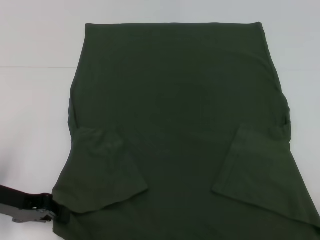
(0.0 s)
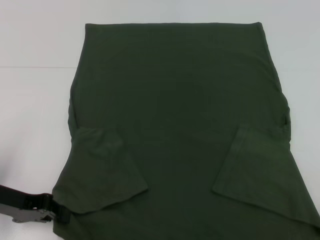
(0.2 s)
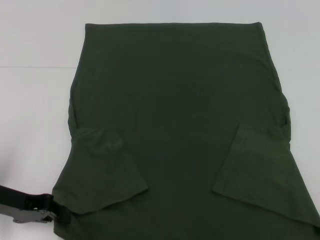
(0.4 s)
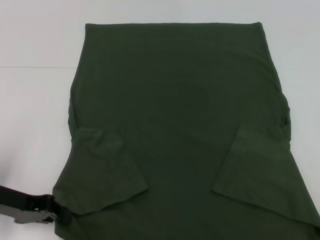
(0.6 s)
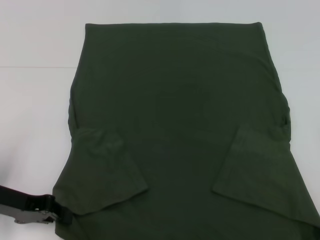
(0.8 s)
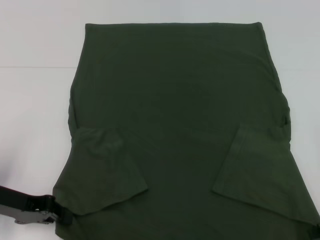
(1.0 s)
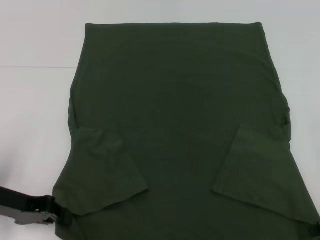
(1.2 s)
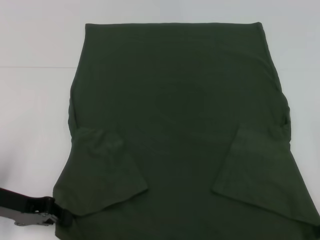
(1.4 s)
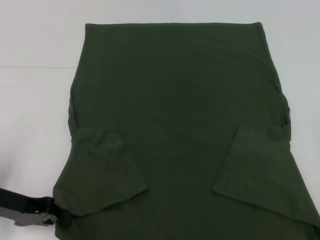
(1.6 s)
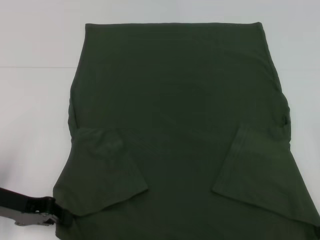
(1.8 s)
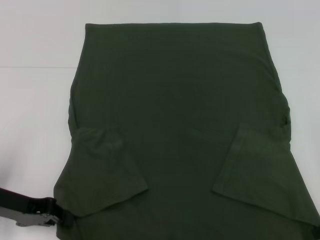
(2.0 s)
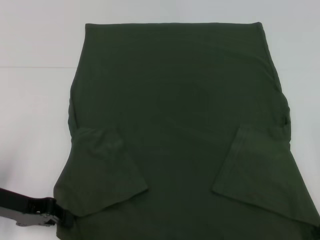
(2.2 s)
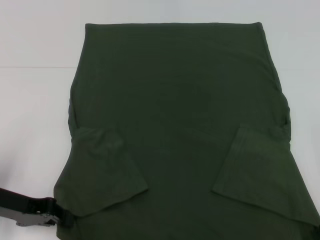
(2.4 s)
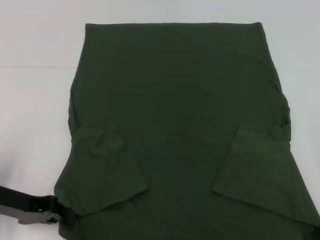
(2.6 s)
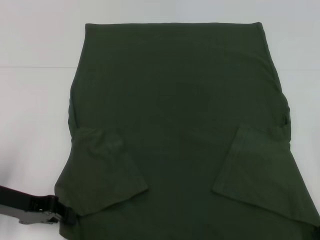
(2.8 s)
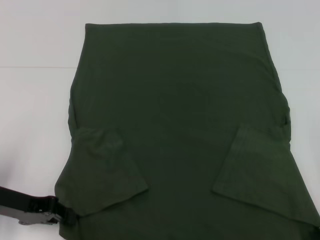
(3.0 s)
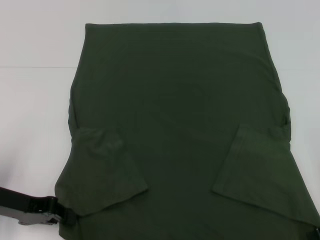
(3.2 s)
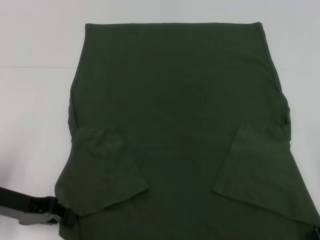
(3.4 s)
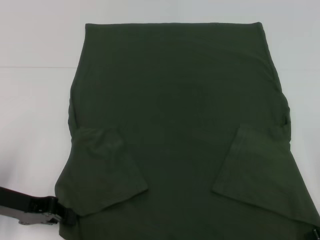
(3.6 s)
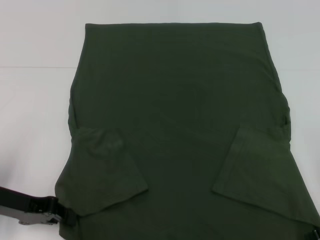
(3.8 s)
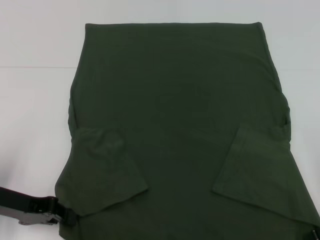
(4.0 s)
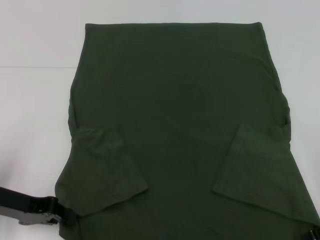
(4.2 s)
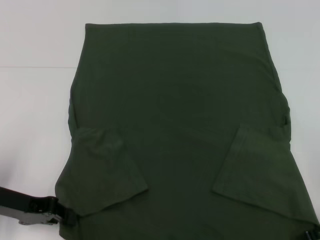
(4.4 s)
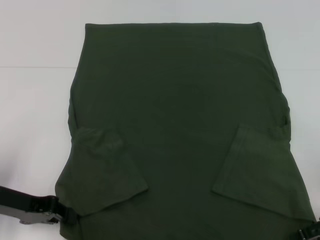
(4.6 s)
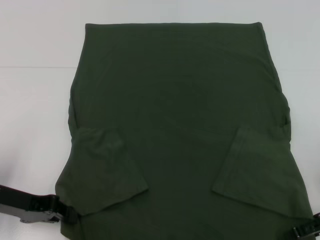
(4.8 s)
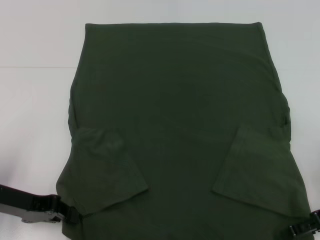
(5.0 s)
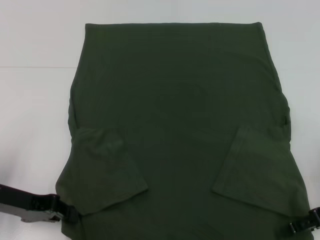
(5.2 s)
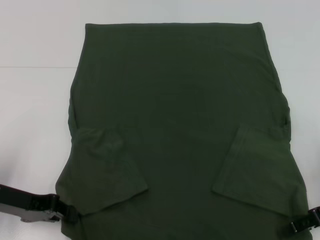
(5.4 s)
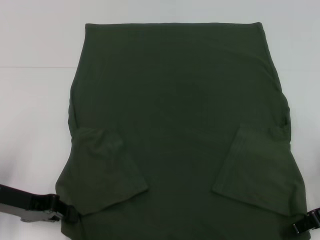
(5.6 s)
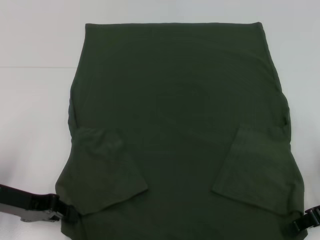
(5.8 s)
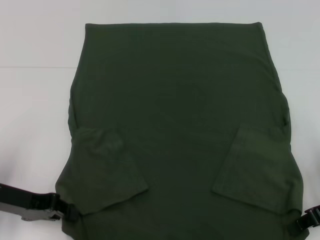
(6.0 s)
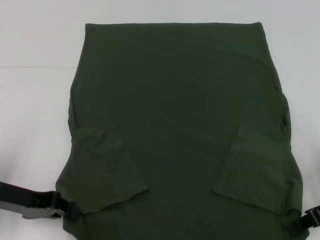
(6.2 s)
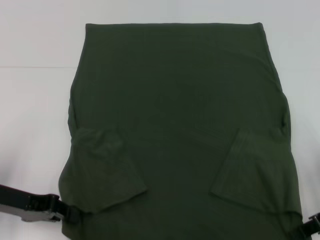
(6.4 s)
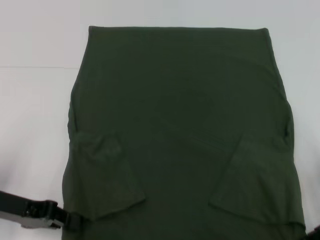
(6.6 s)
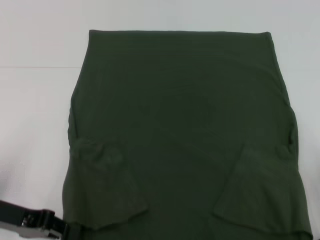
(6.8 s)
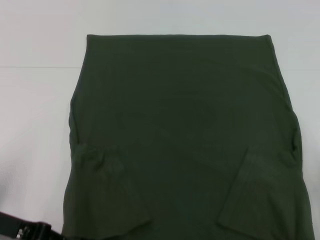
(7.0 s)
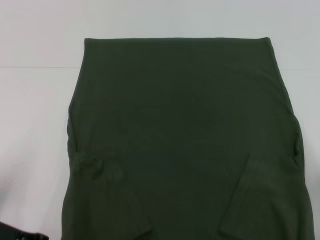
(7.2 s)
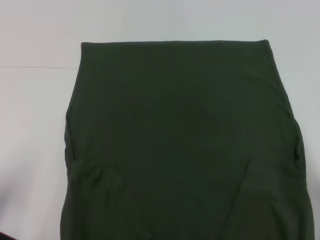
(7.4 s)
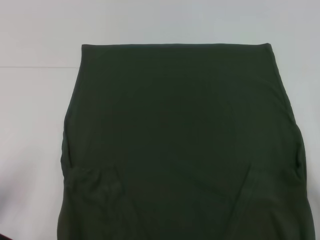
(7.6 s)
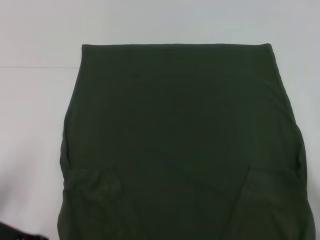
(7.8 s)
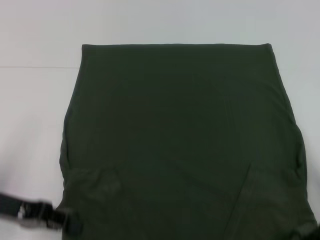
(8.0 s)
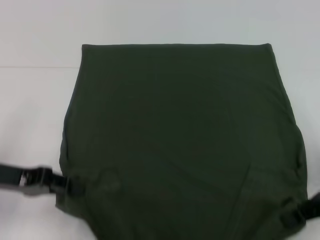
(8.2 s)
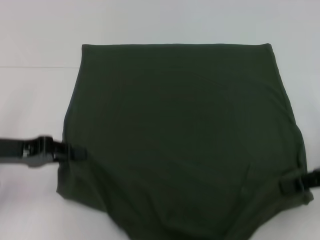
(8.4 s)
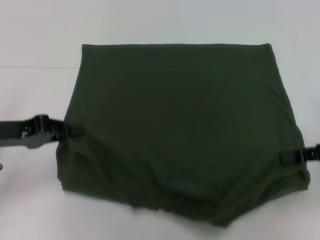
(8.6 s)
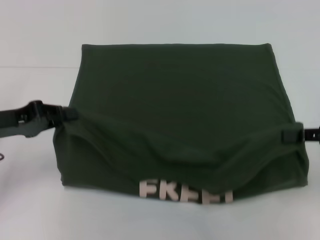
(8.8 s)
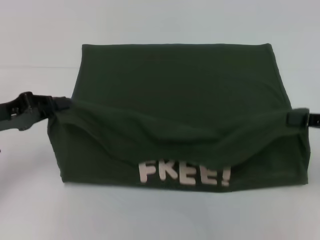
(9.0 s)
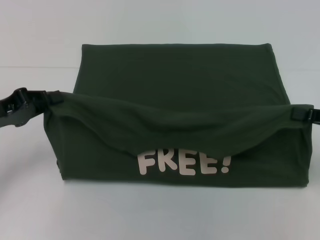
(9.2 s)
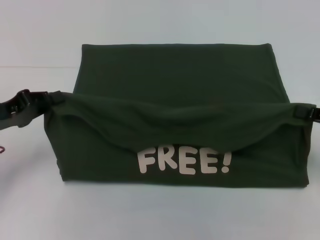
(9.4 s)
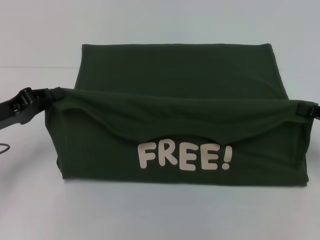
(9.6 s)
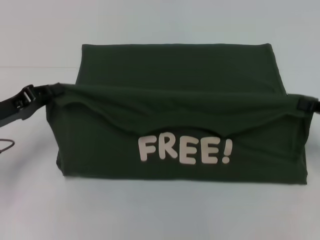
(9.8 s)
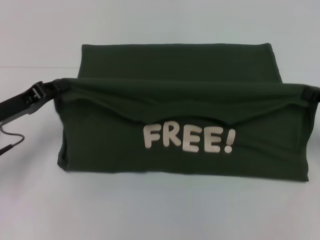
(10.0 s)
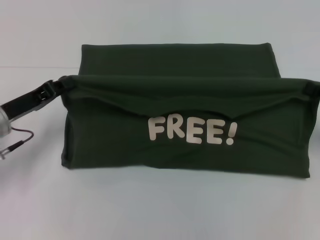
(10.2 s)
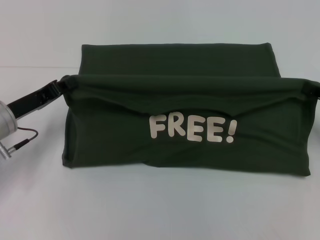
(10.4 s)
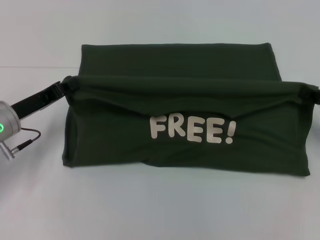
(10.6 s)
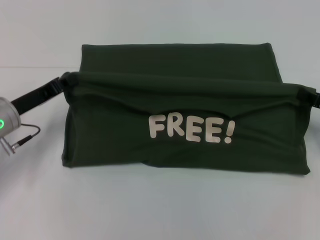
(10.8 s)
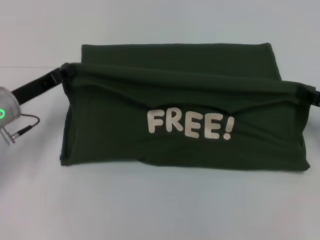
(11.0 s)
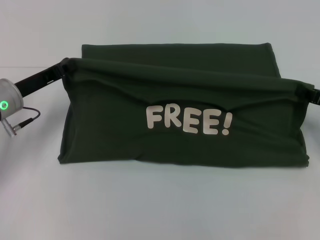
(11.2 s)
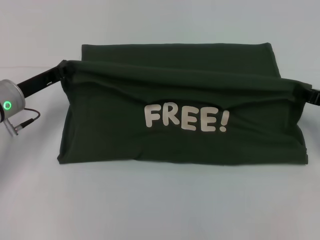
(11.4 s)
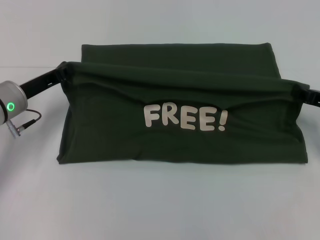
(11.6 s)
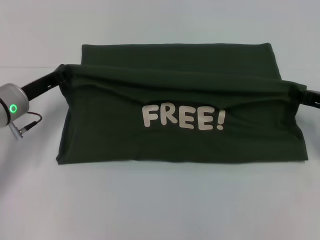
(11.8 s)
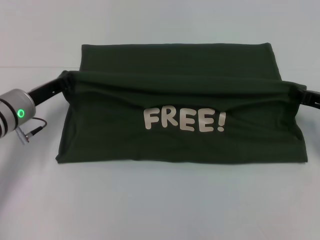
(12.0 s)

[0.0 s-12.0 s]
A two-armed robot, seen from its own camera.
Step, 0.0 to 6.2 s: Grab the bottom right corner with your right hand.
0.0 to 1.6 s: The grippers move only a little.
1.6 to 3.0 s: Neither gripper changes place.
4.4 to 6.0 s: The right gripper closes.
7.6 to 9.0 s: The left gripper travels forward by about 5 cm. The right gripper goes approximately 5 cm to the right.
9.0 to 10.4 s: The right gripper shifts by approximately 5 cm, while the left gripper changes place by roughly 5 cm.
10.4 to 12.0 s: There are only small adjustments of the grippers.

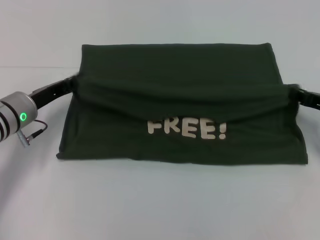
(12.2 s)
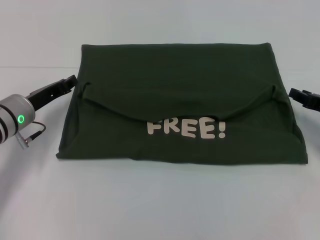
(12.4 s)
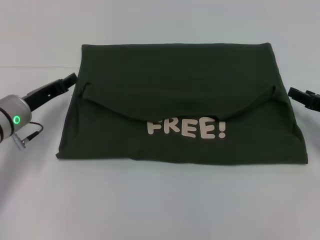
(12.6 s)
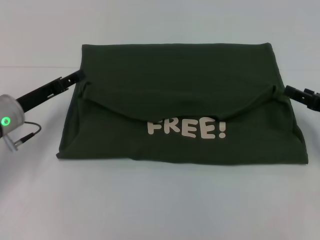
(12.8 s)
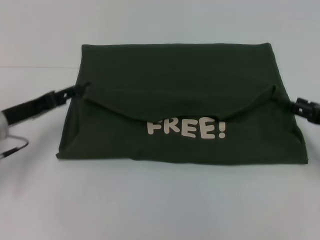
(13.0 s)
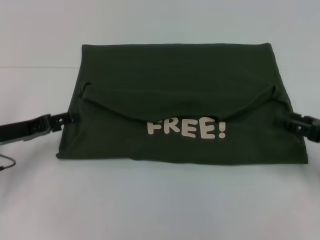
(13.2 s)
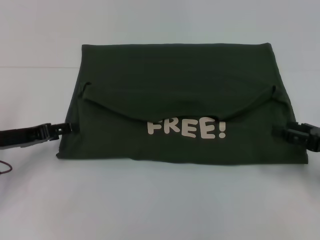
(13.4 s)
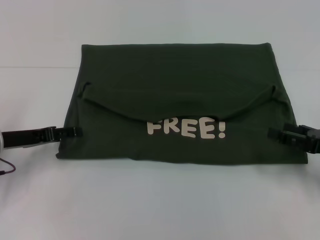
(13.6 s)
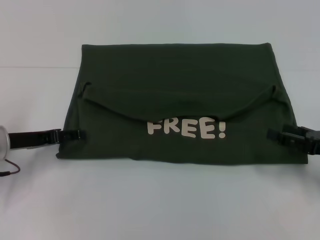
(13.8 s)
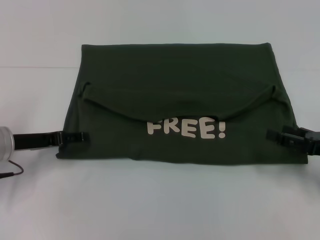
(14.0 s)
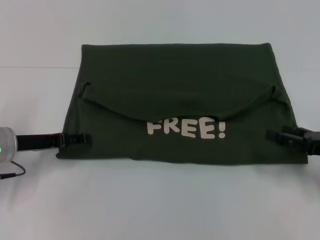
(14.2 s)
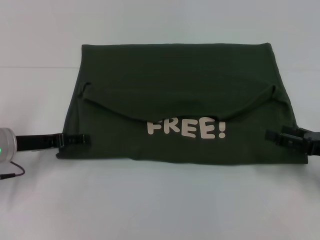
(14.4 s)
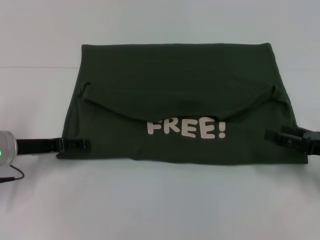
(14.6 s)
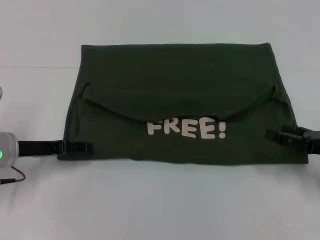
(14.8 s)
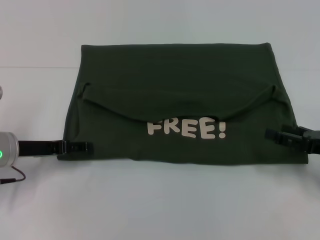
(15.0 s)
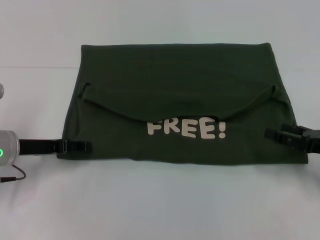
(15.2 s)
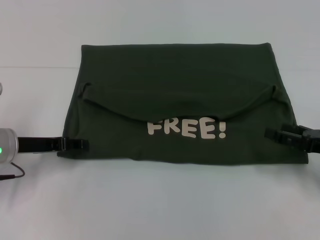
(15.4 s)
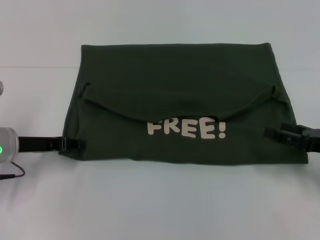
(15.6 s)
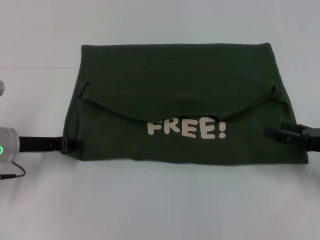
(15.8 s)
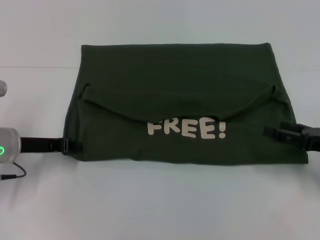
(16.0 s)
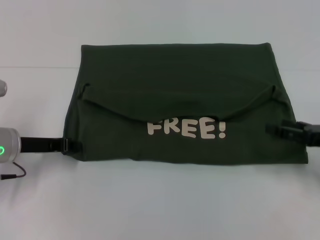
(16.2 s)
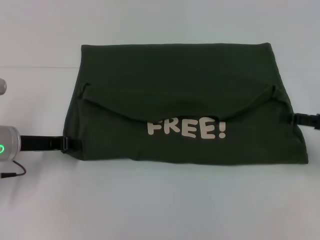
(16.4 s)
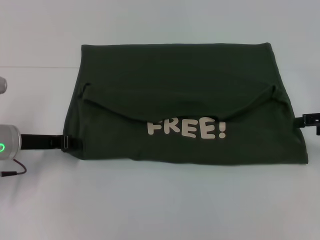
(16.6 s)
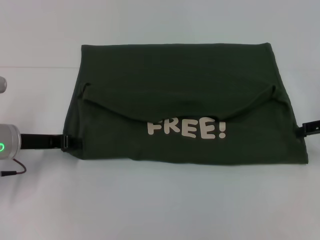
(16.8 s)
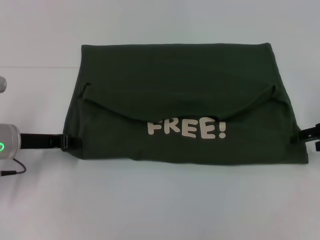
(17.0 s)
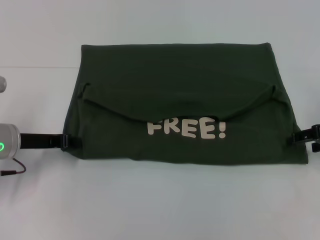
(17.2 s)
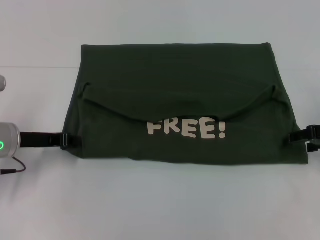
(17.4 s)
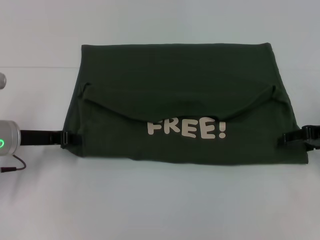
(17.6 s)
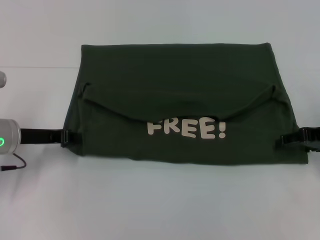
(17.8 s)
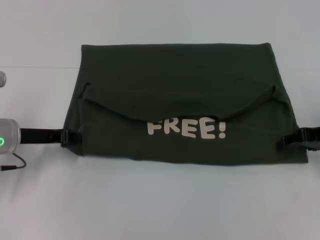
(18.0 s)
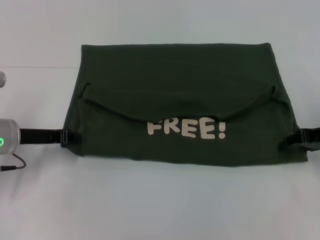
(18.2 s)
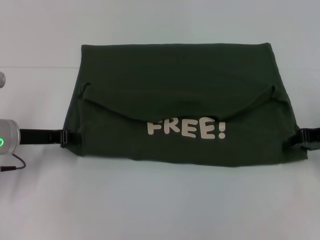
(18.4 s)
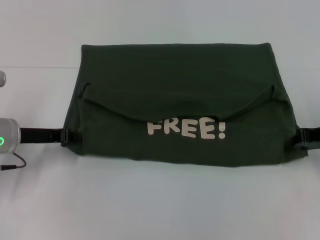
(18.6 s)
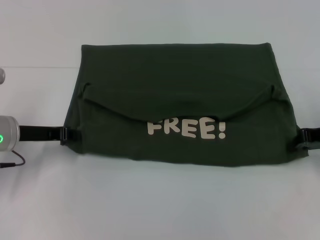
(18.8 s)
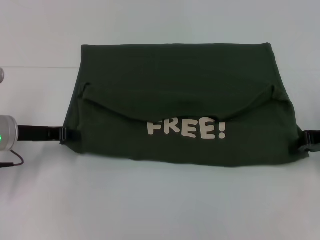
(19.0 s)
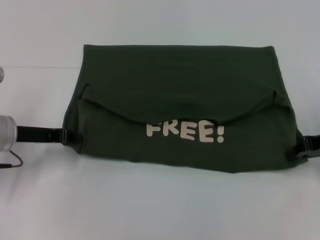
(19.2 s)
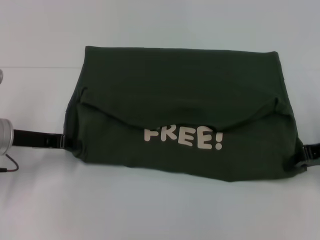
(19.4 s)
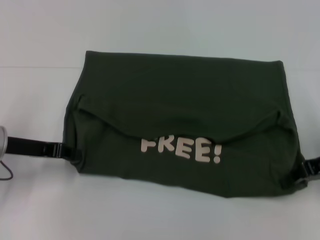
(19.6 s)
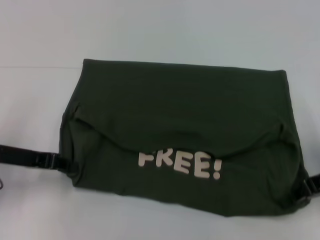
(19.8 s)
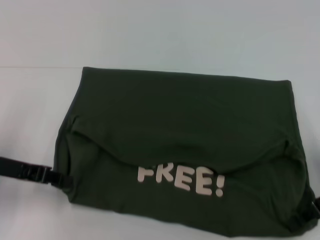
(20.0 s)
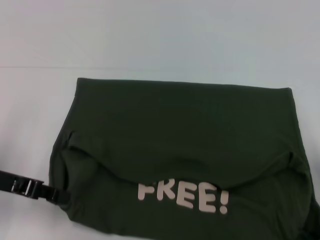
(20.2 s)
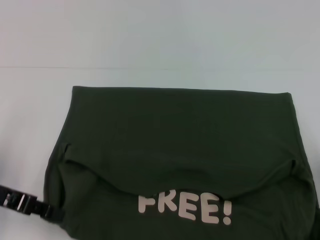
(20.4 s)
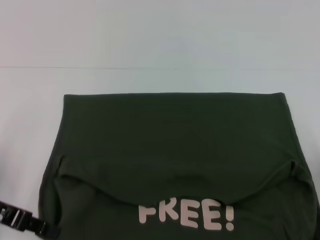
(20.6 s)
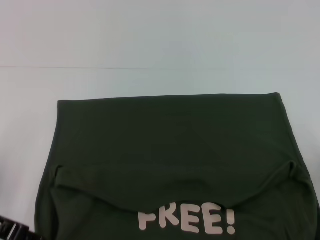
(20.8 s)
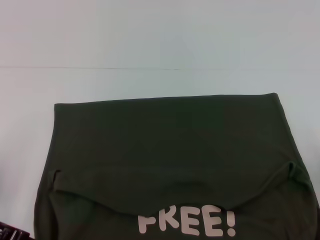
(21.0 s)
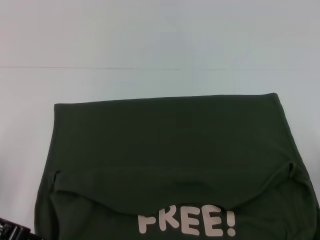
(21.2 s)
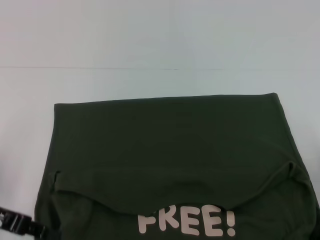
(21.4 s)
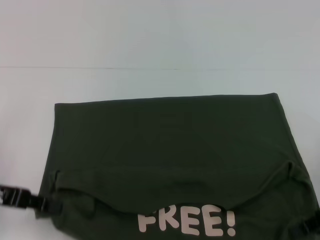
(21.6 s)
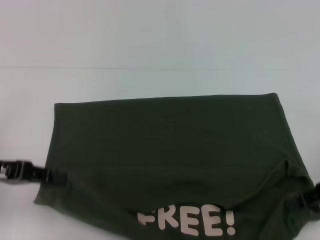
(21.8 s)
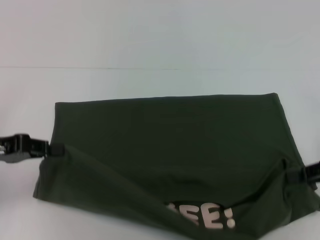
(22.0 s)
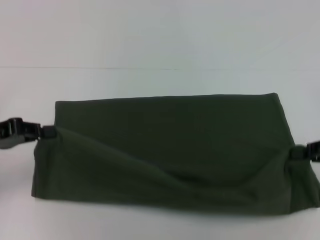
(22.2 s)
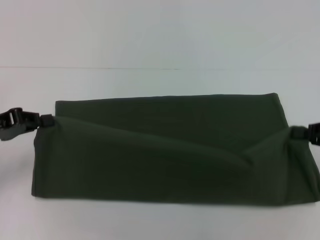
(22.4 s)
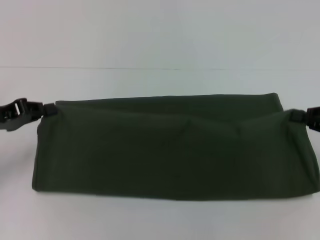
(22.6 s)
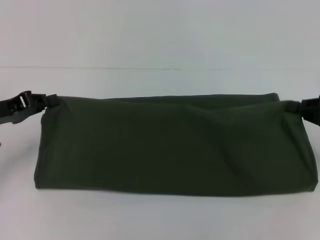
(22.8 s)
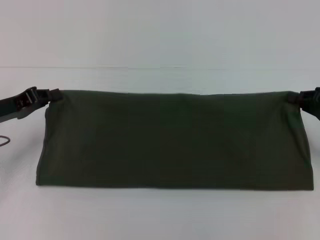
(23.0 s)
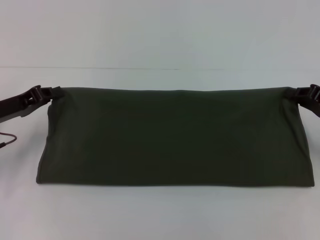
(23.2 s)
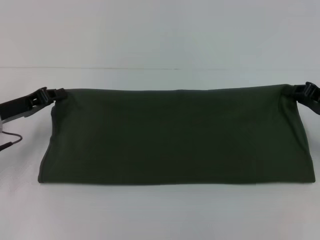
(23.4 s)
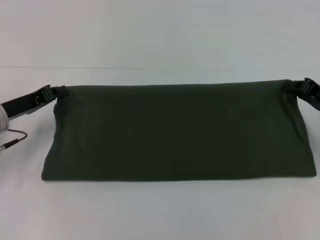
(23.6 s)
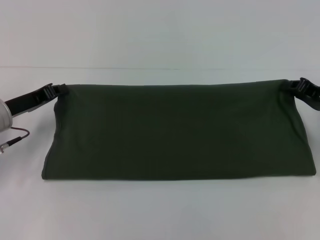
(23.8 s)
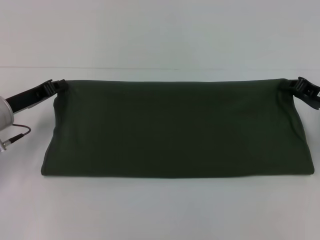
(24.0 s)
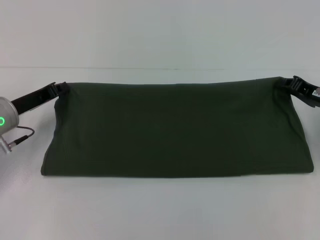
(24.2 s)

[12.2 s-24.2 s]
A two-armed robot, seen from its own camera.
Step, 12.8 to 20.6 s: Pull the clothes with your left hand.
Step, 12.8 to 20.6 s: Pull the clothes with your right hand.
12.2 to 13.8 s: The right gripper is displaced backward by roughly 5 cm, and opens its fingers; the left gripper ends up approximately 5 cm from where it was, and opens.
13.8 to 15.2 s: The grippers make only small movements.
15.2 to 16.6 s: The right gripper goes about 5 cm upward, while the left gripper closes up.
16.6 to 18.2 s: The right gripper ends up approximately 5 cm from where it was.
18.2 to 19.8 s: The right gripper closes.
19.8 to 21.2 s: The left gripper shifts about 5 cm backward.
21.2 to 22.6 s: The left gripper goes roughly 5 cm forward, while the right gripper moves roughly 5 cm.
22.6 to 24.2 s: The left gripper travels to the right by about 5 cm. The right gripper moves forward and to the left, approximately 10 cm.
